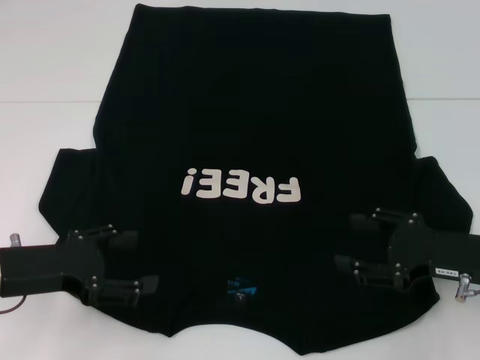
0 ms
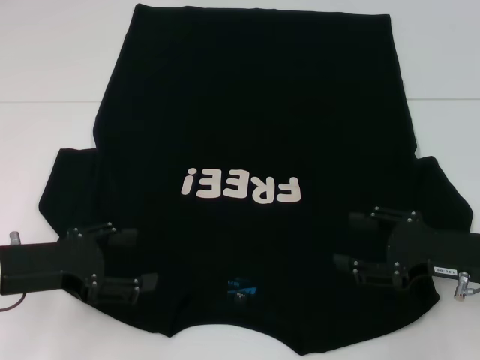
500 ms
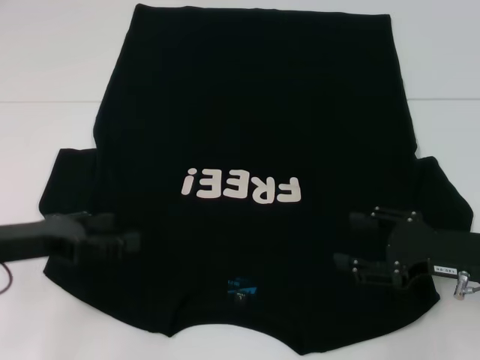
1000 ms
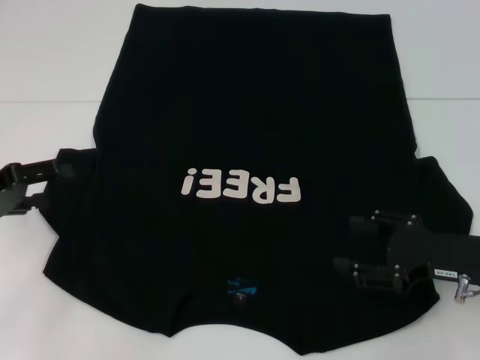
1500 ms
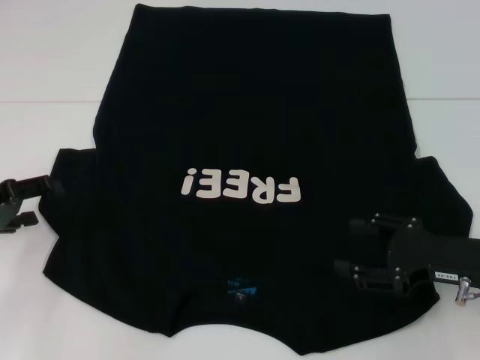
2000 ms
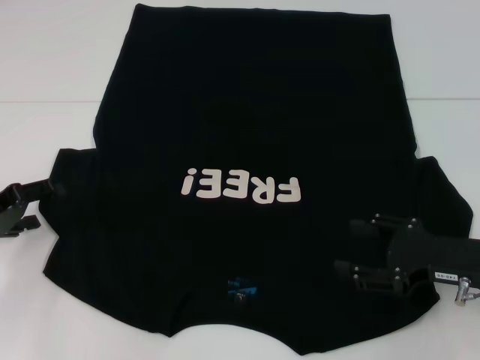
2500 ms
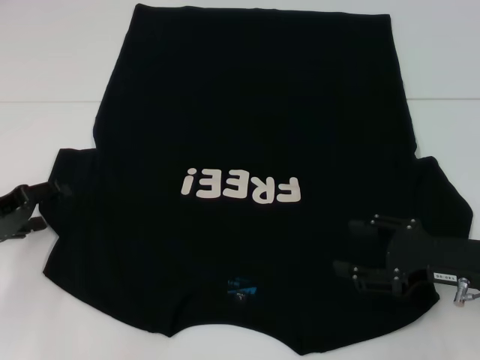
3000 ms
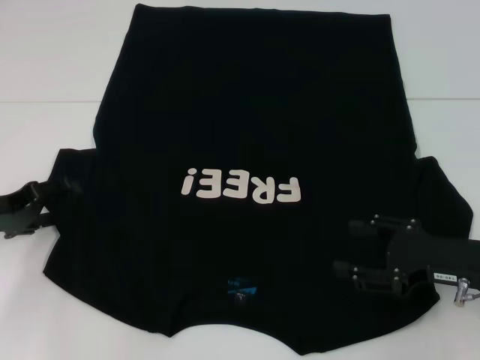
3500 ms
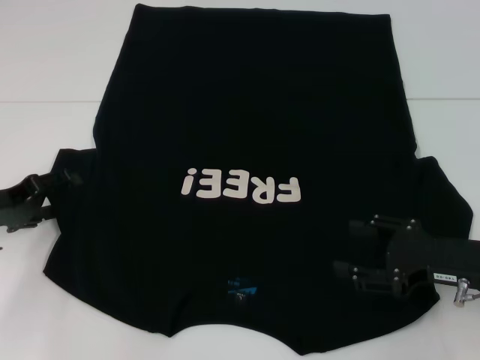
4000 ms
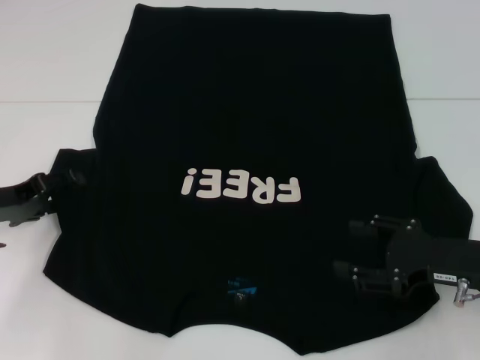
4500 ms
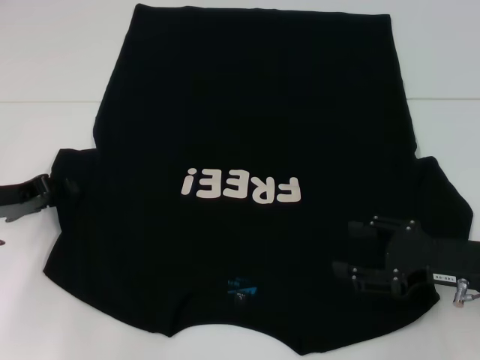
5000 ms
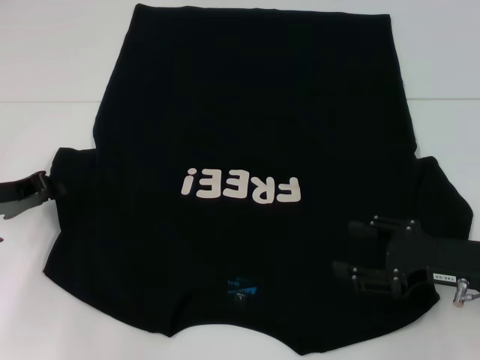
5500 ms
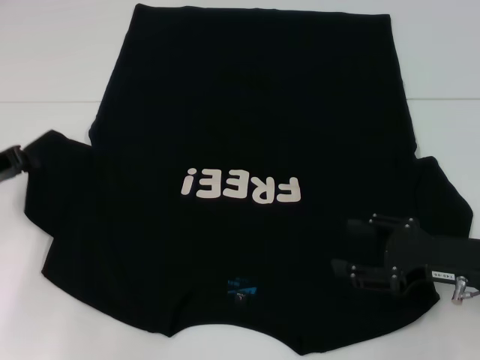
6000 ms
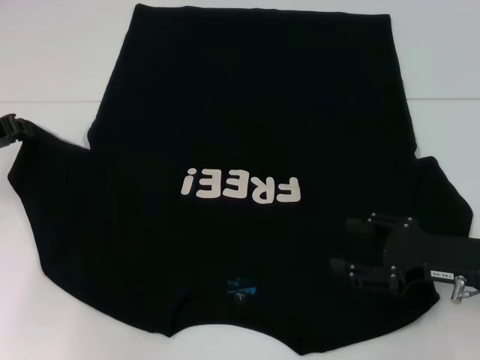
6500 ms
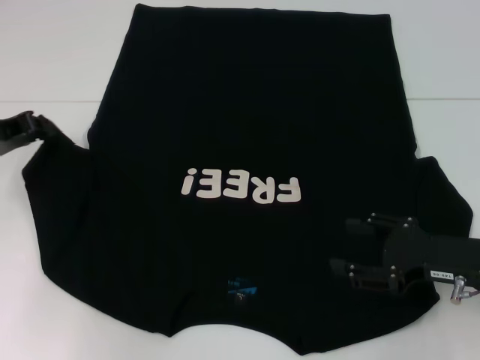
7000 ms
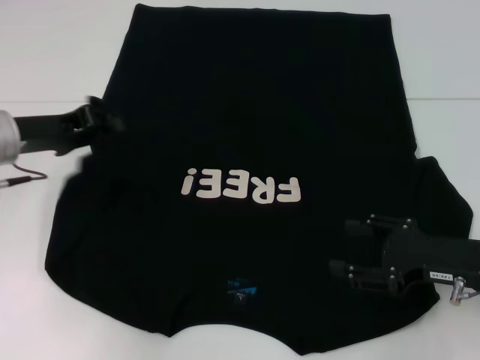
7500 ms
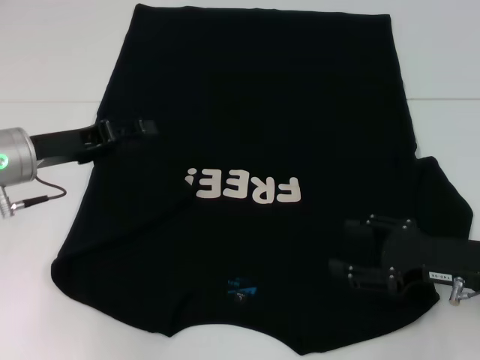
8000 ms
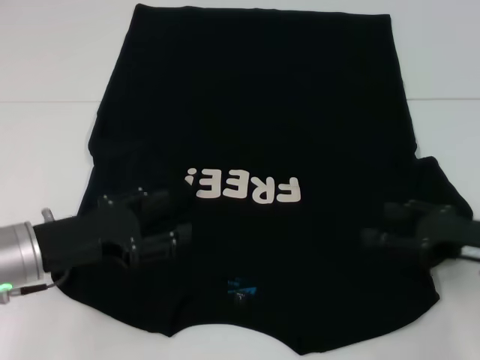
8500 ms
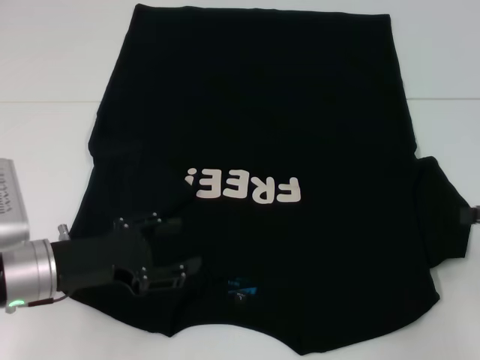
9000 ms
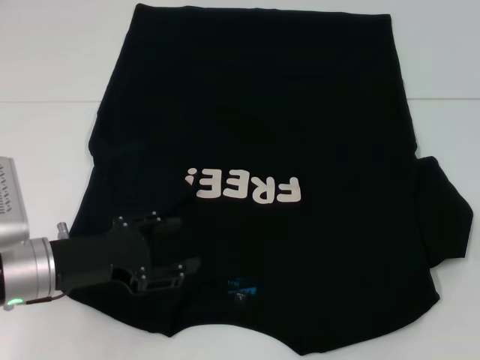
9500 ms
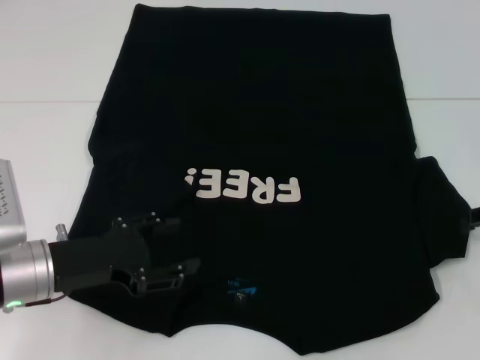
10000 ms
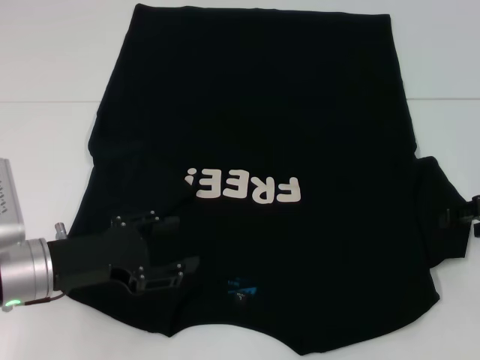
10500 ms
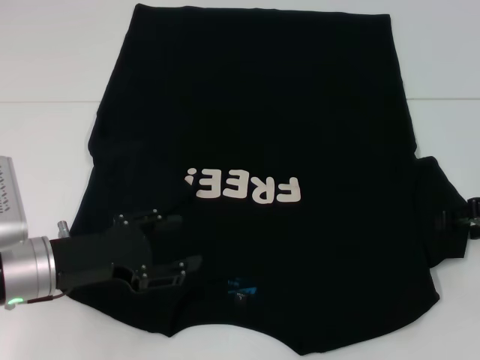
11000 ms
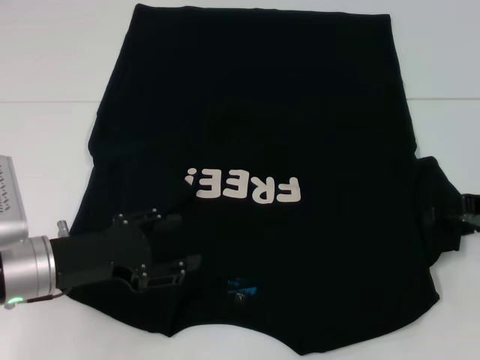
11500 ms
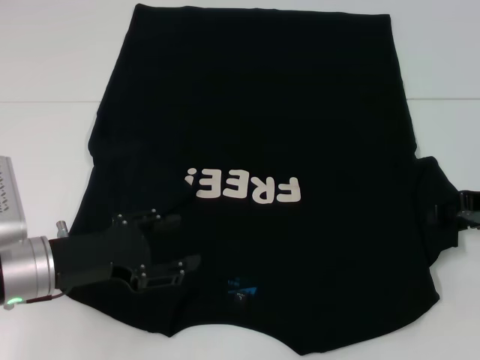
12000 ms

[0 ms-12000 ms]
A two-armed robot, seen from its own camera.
Step, 0 ms to 8500 ms: Fold the bottom left sleeve with your left hand.
0 ms to 2000 ms: The left gripper heads to the left, covering approximately 10 cm.
2000 ms to 4000 ms: The grippers stay close to where they were, moving slightly.
4000 ms to 6000 ms: The left gripper closes its fingers.
6000 ms to 8000 ms: The left gripper is displaced to the right by roughly 10 cm, and opens.
8000 ms to 10000 ms: The right gripper is displaced to the right, upward and forward by about 15 cm. Meanwhile the left gripper goes some 10 cm backward and downward.
10000 ms to 12000 ms: The grippers make only small movements.

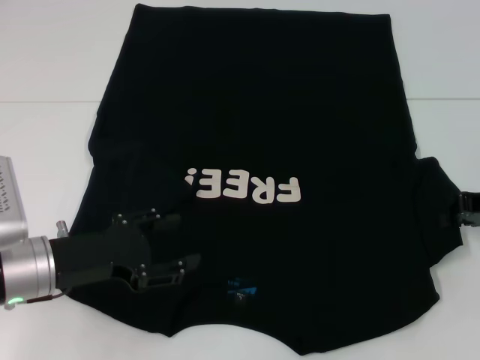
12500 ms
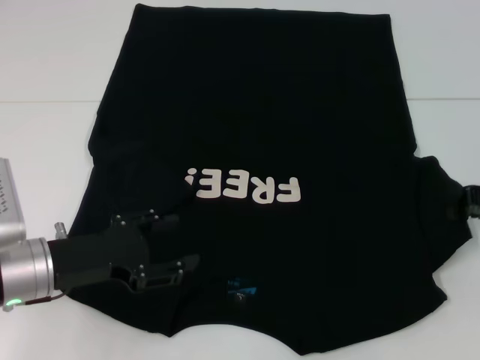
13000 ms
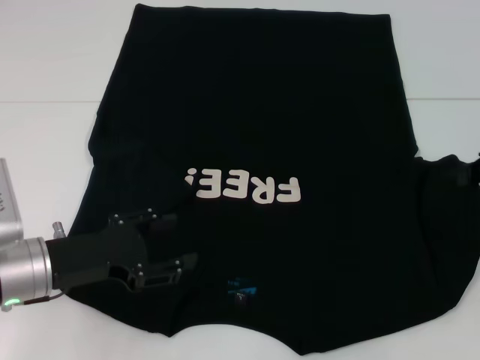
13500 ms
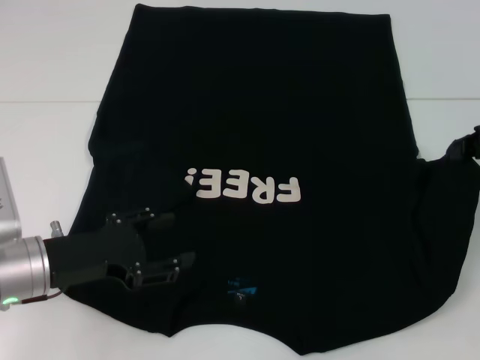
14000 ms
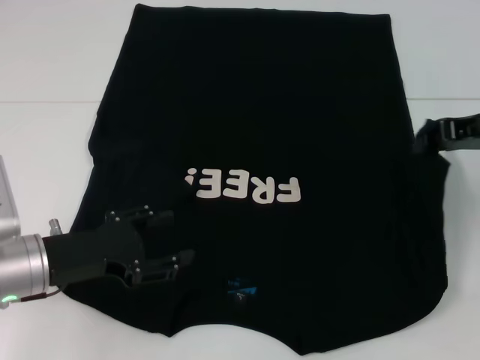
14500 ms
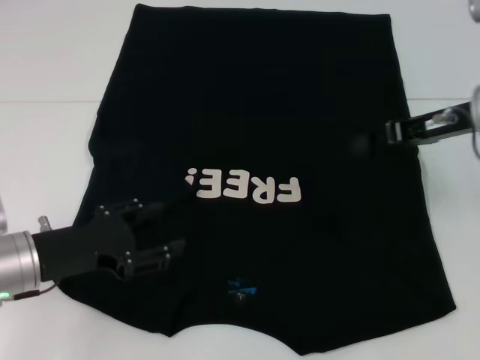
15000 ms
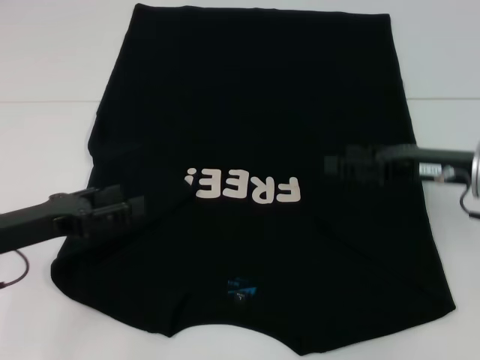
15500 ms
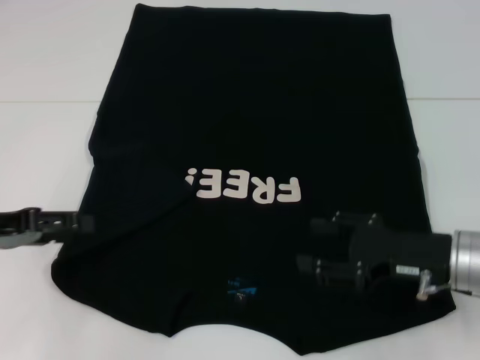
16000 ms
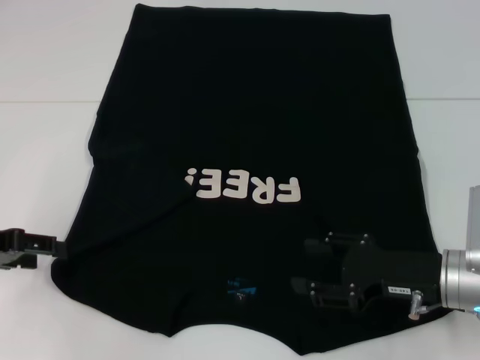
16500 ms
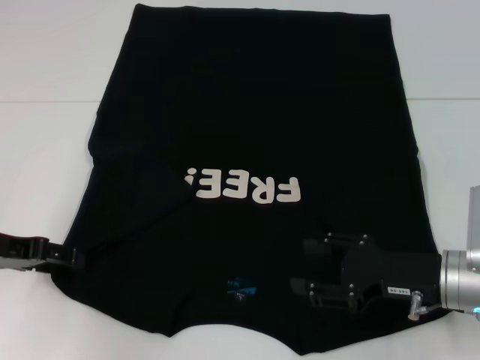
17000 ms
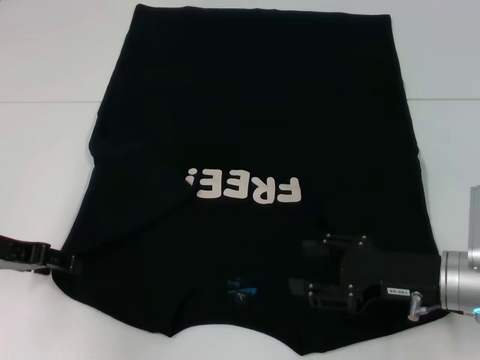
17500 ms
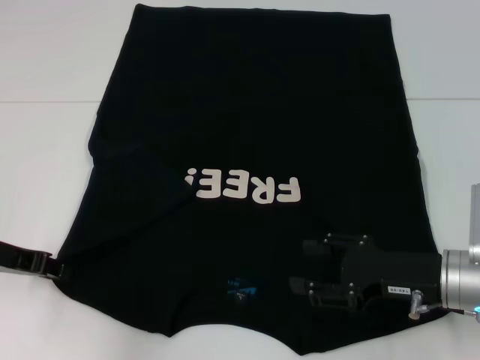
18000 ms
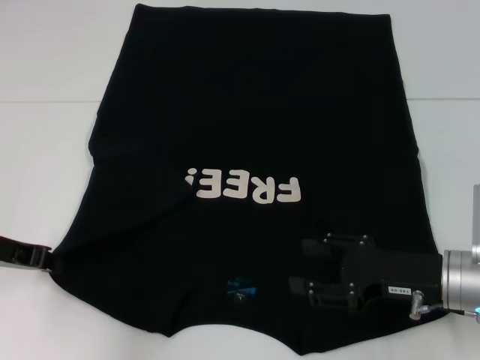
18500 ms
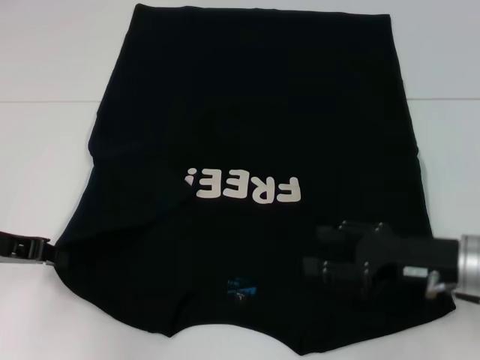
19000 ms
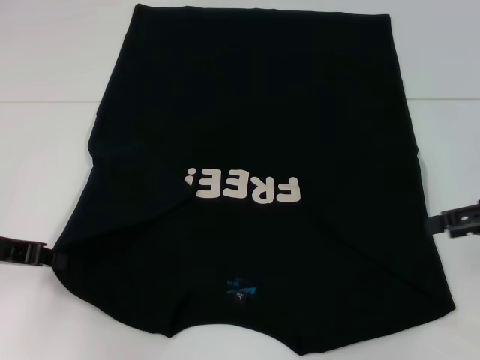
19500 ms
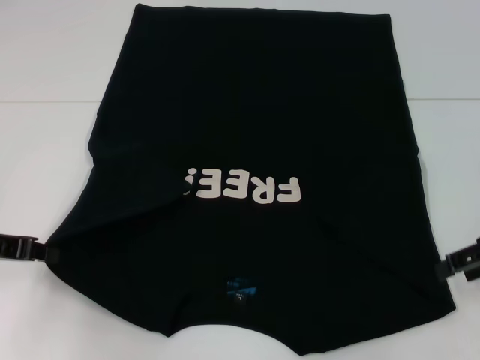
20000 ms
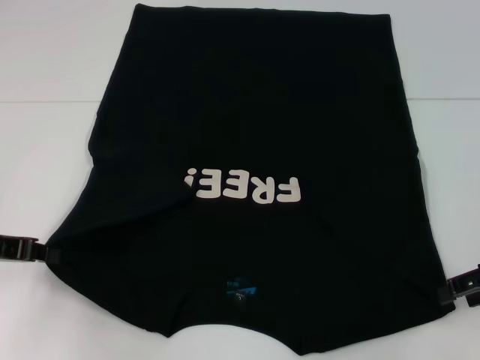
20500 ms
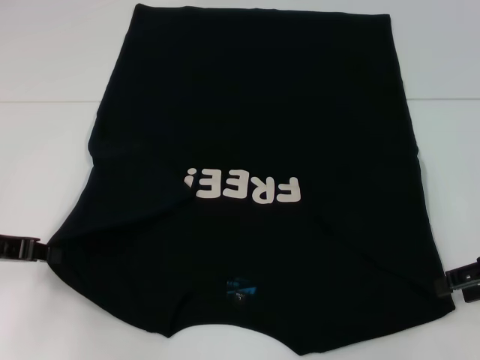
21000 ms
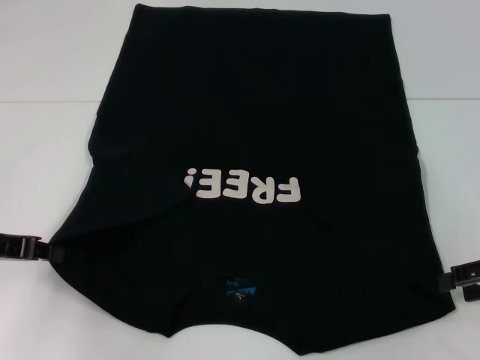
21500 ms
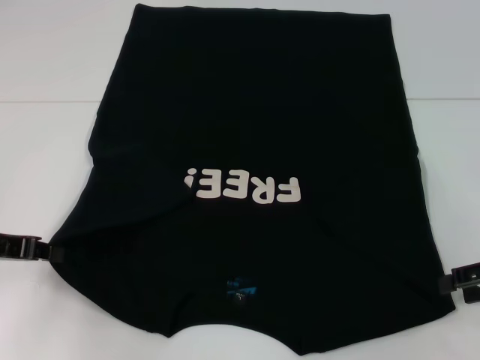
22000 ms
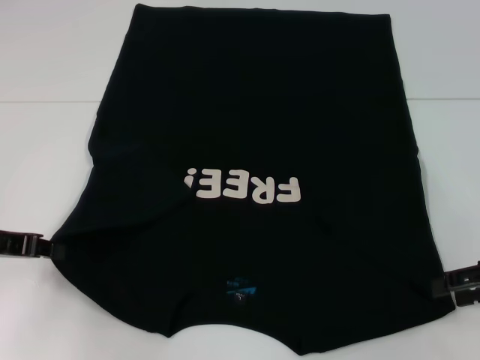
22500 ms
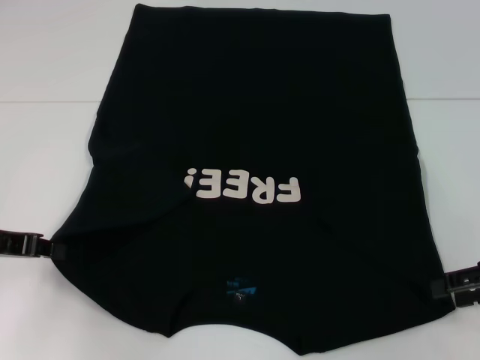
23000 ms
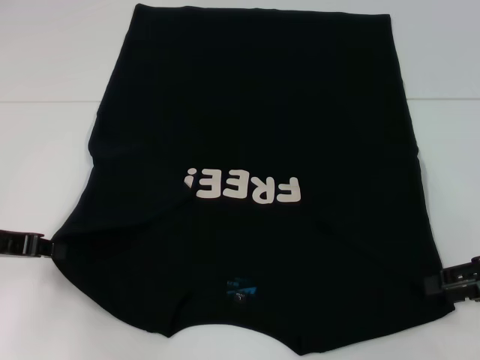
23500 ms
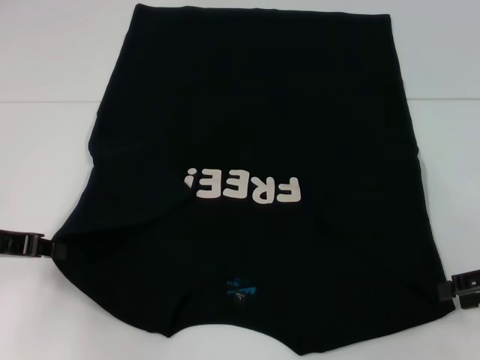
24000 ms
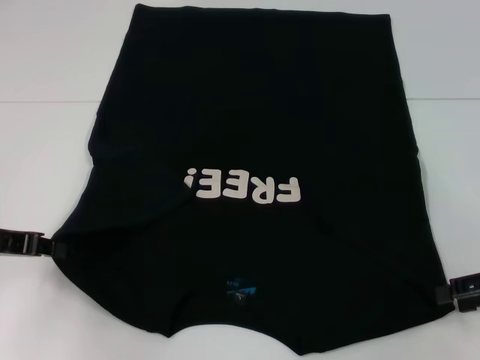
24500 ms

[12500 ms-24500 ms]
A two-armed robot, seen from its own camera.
Step, 12500 ms to 15500 ms: Fold the bottom right sleeve with your right hand.
12500 ms to 14500 ms: The right gripper shifts roughly 5 cm upward.
14500 ms to 16500 ms: The left gripper travels to the left by some 10 cm; the right gripper shifts roughly 20 cm downward, backward and to the left, and opens up.
16500 ms to 18500 ms: The left gripper closes.
18500 ms to 20500 ms: The right gripper heads to the right and upward, covering about 15 cm.
20500 ms to 22500 ms: The grippers stay close to where they were, moving slightly.
22500 ms to 24500 ms: The two grippers keep their place.

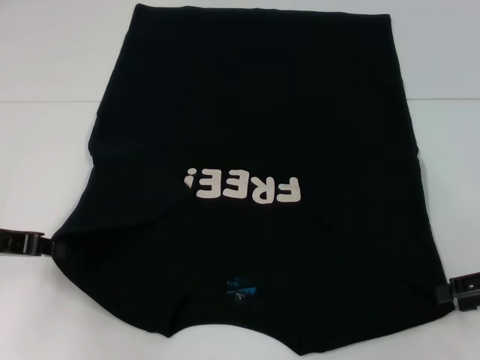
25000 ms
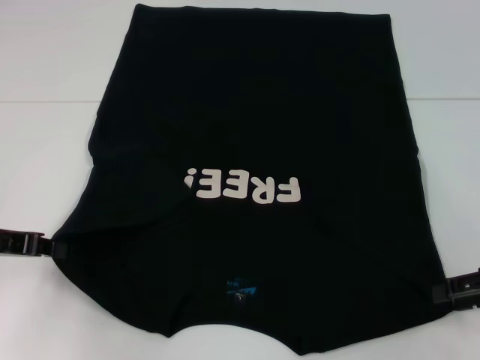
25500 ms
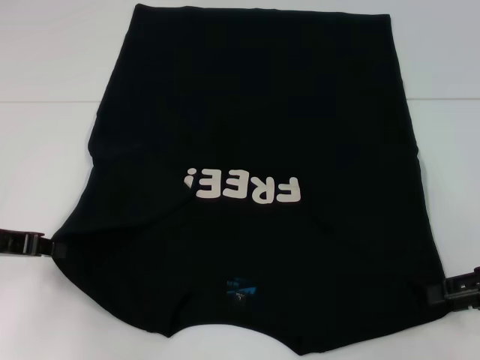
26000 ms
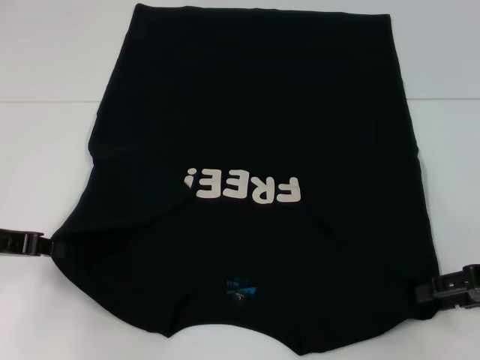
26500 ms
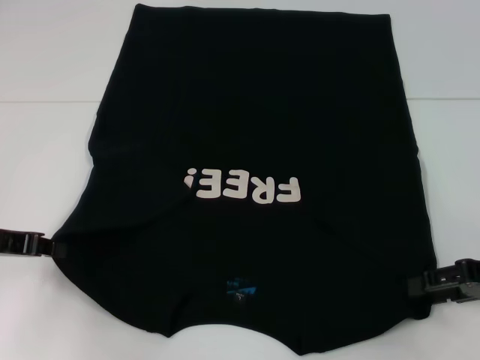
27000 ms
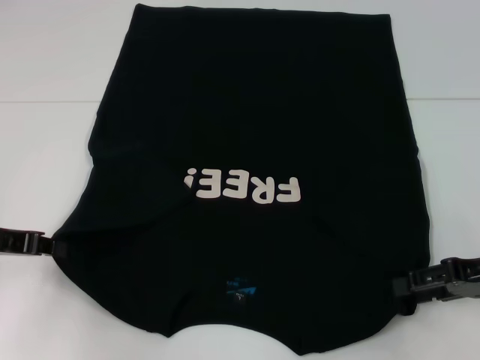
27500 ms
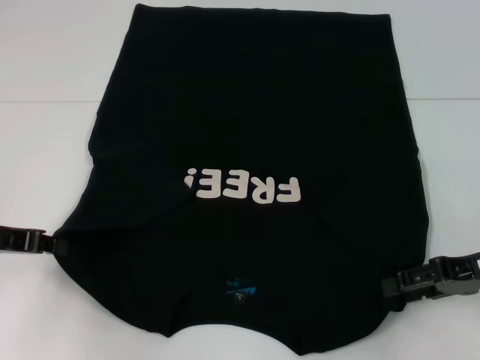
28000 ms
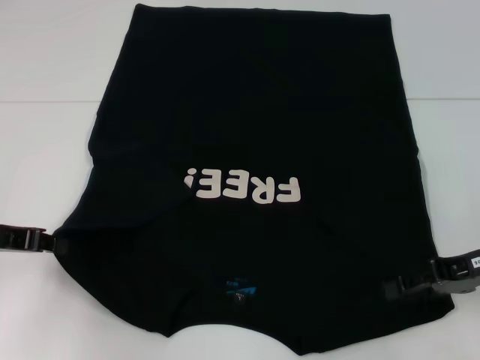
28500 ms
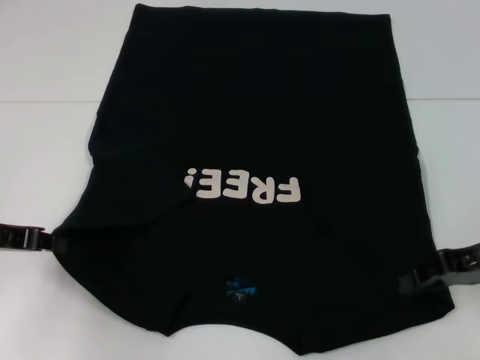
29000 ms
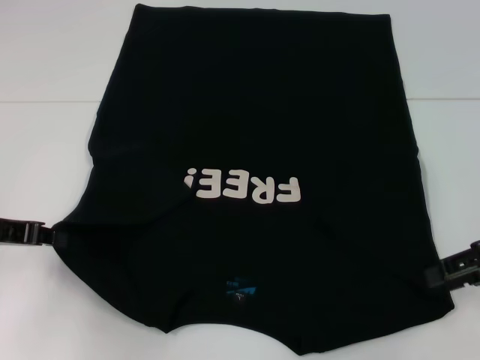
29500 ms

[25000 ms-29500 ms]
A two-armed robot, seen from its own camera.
25000 ms to 27000 ms: The grippers move only a little.
27000 ms to 29500 ms: There are only small adjustments of the grippers.
